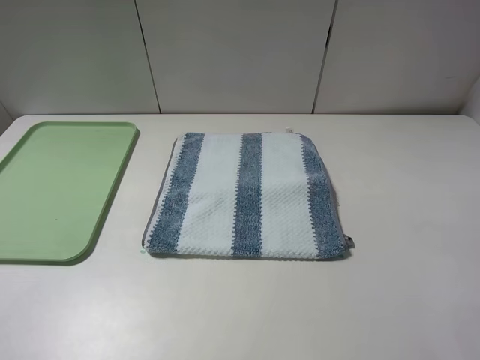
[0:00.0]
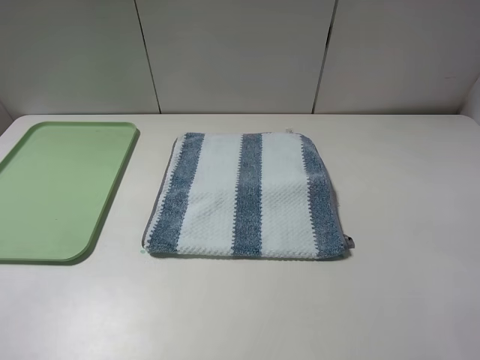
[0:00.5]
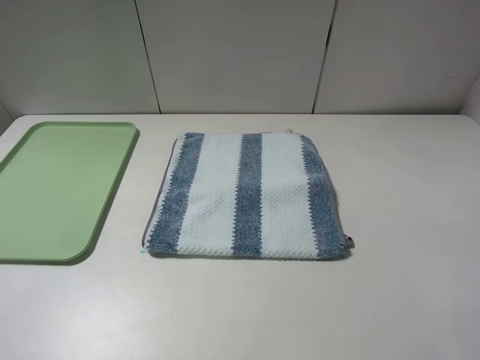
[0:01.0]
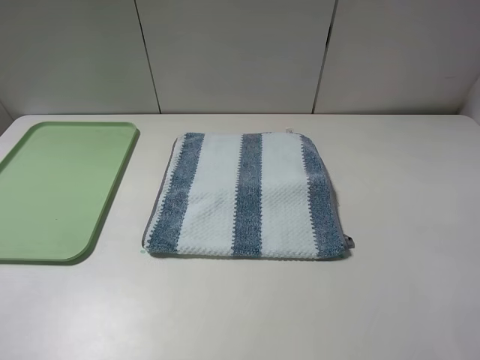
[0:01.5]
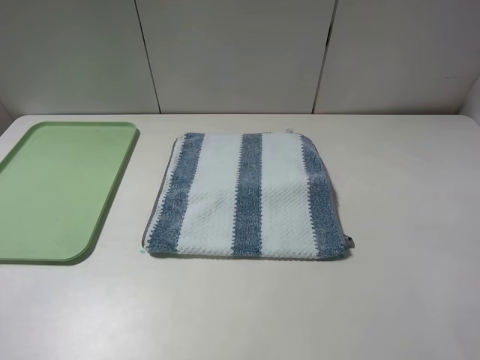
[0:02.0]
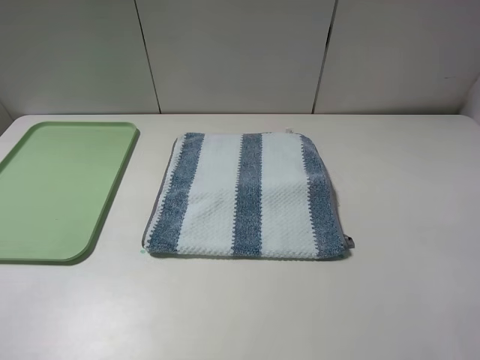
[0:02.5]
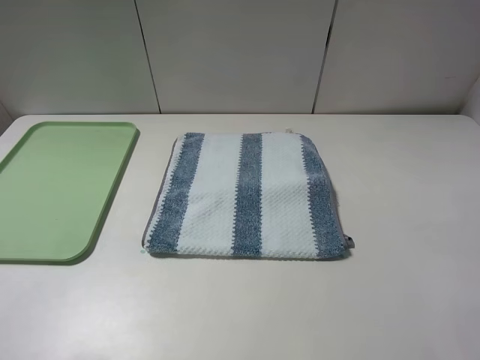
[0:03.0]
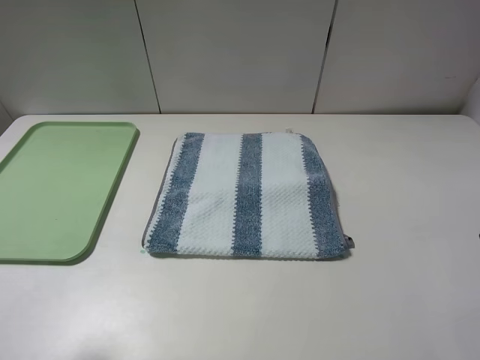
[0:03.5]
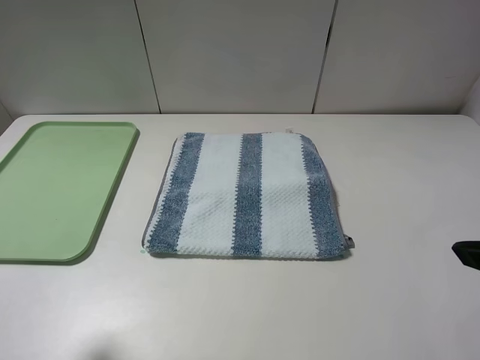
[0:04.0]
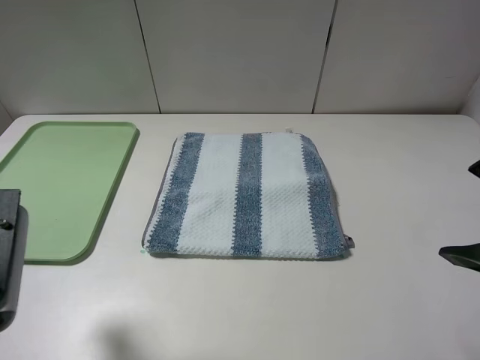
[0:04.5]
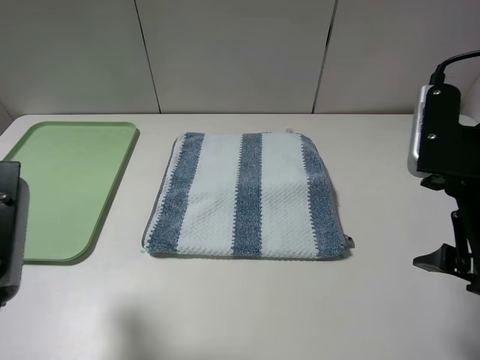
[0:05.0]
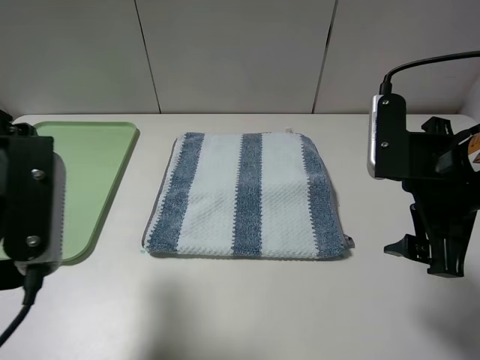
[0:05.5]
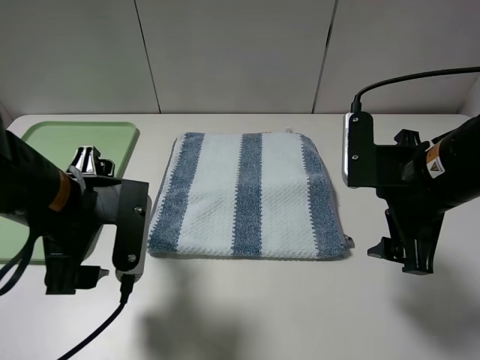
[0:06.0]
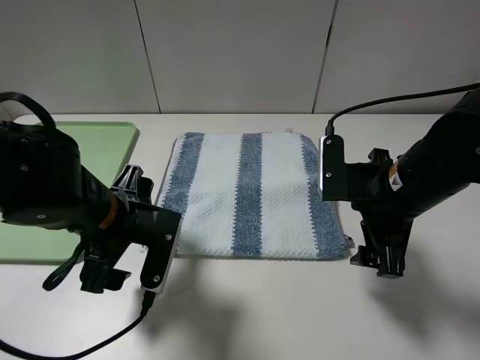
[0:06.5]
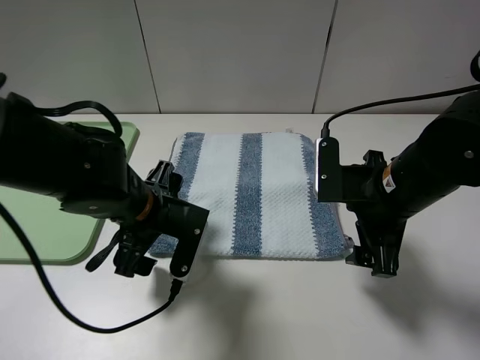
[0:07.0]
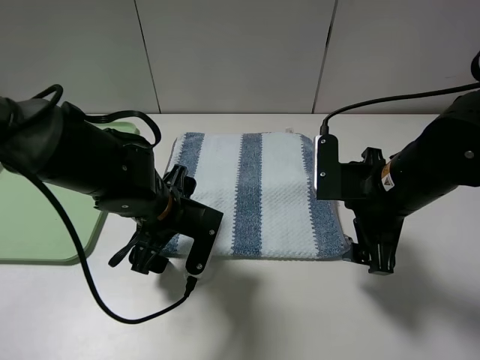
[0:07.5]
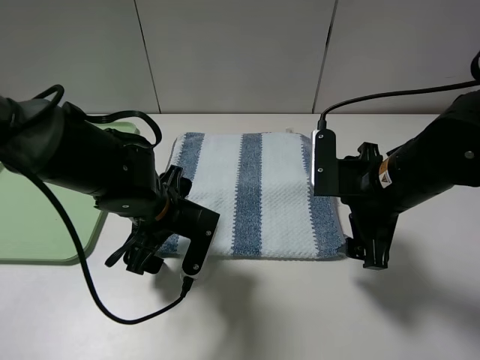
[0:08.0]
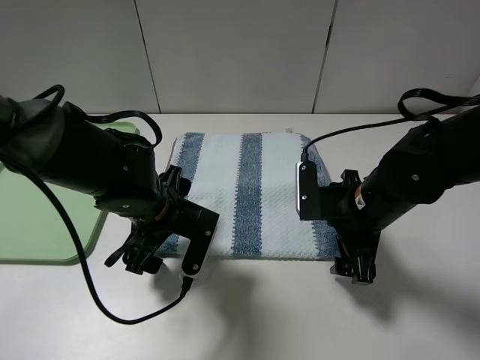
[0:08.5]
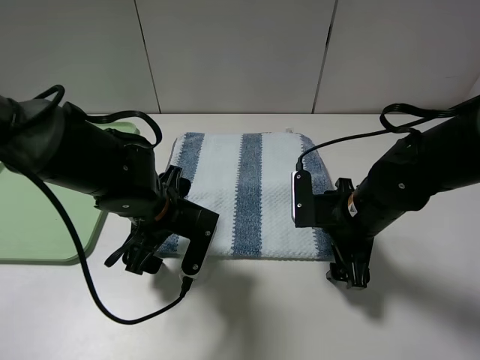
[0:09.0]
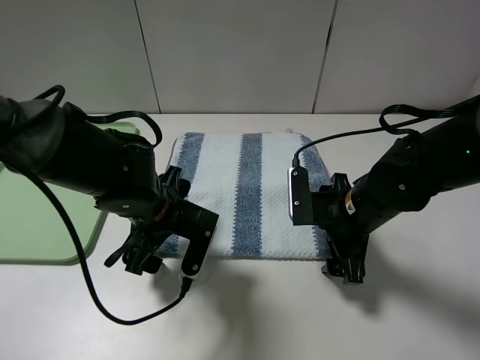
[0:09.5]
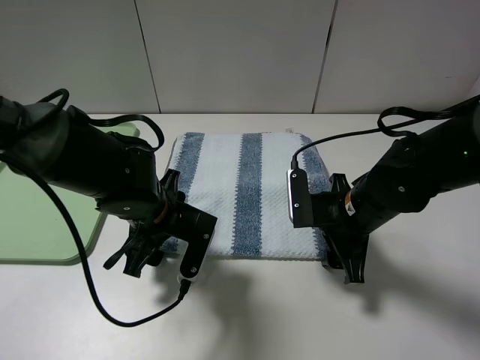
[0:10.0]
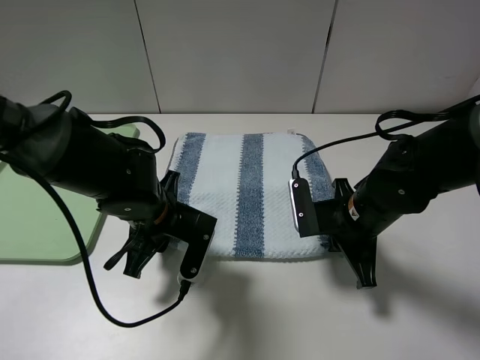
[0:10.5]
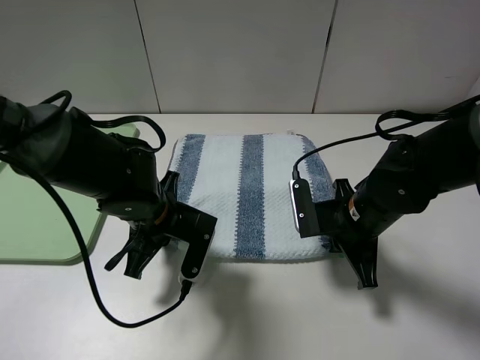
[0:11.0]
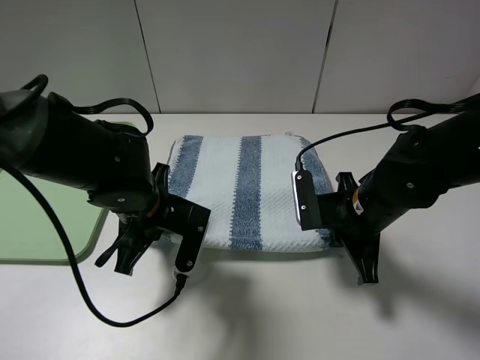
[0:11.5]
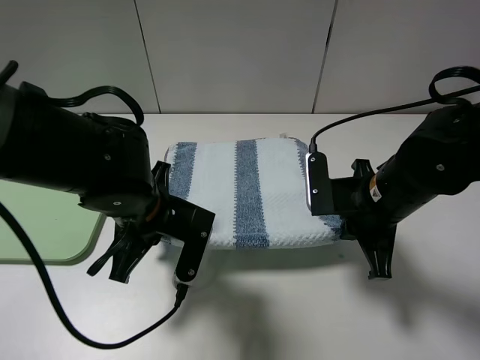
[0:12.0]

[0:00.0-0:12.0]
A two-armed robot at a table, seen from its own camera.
Step, 0:00.0 to 0:10.5: Grasp the blue white towel with the left gripper.
0:00.0 to 0:02.0: Both grippers stay about where they are.
0:04.0 to 0:06.0: The right gripper heads forward, downward and to the left, covering roughly 15 cm, while the left gripper goes approximately 15 cm to the right, forward and downward.
0:06.0 to 0:08.0: The right gripper shifts by roughly 5 cm. The left gripper travels downward, to the right and forward by roughly 10 cm.
0:08.0 to 0:10.0: The right gripper is displaced downward by approximately 5 cm.
0:10.0 to 0:12.0: The left gripper closes up, while the right gripper moves some 5 cm, and closes its fingers.

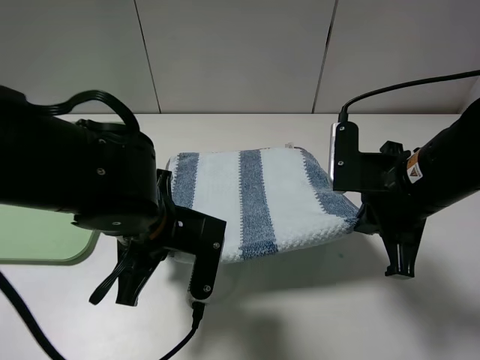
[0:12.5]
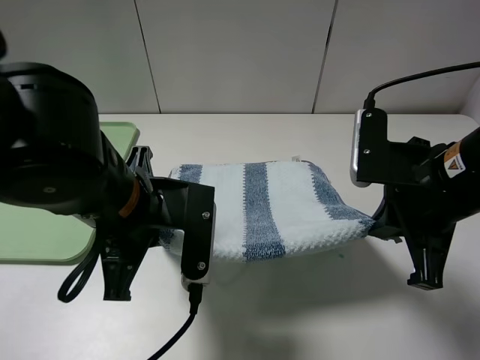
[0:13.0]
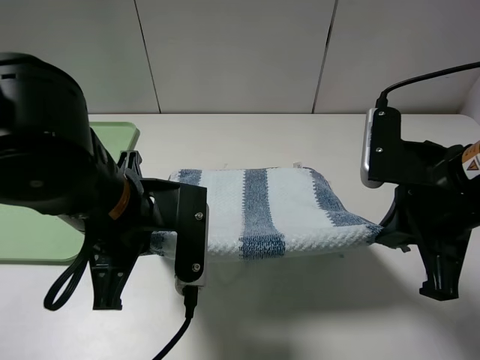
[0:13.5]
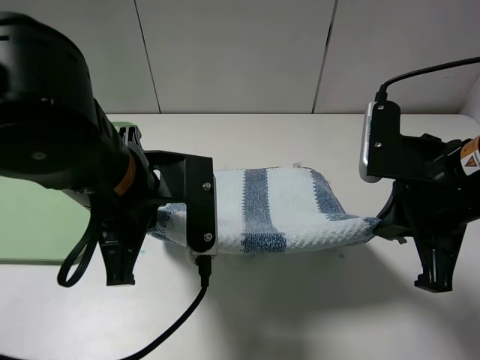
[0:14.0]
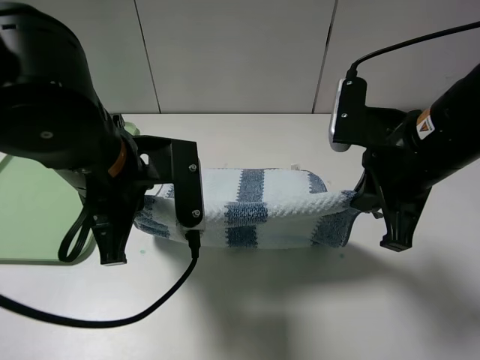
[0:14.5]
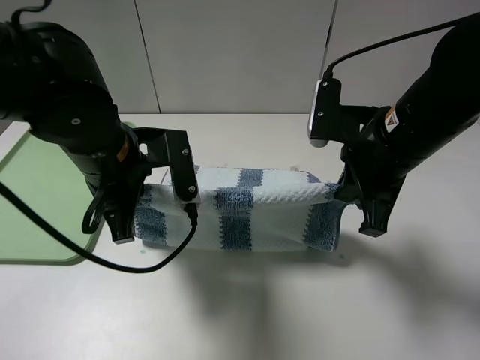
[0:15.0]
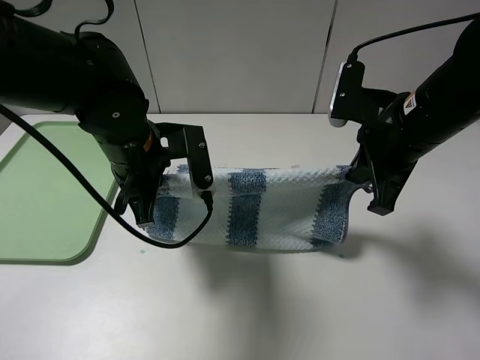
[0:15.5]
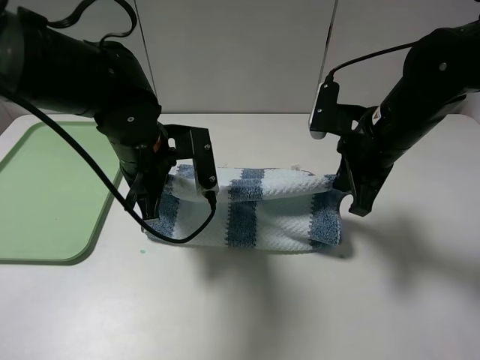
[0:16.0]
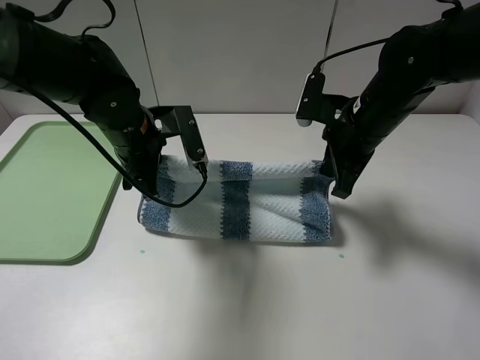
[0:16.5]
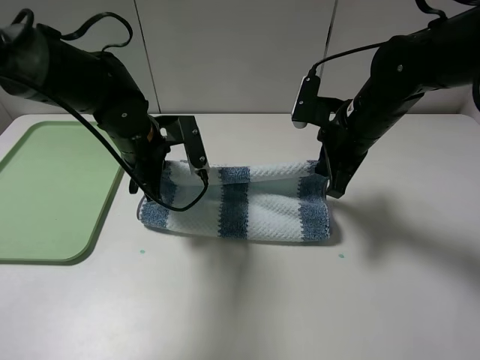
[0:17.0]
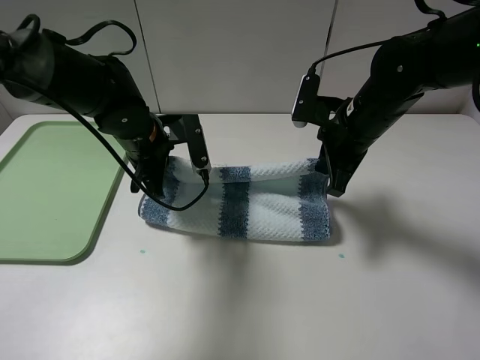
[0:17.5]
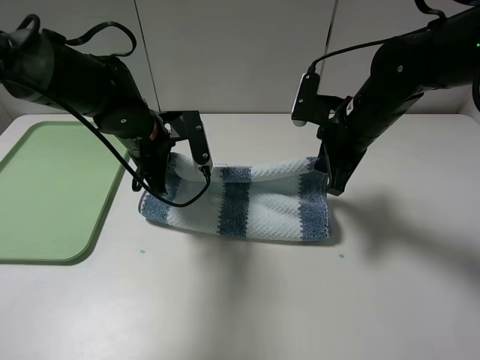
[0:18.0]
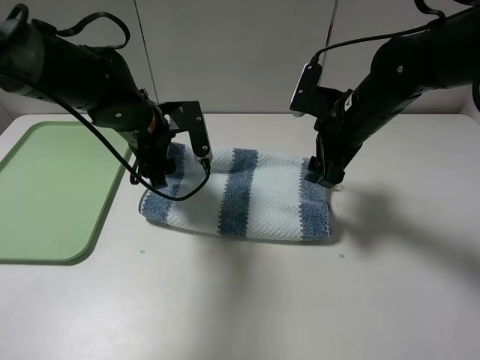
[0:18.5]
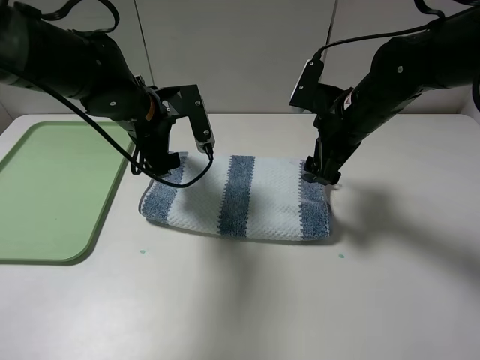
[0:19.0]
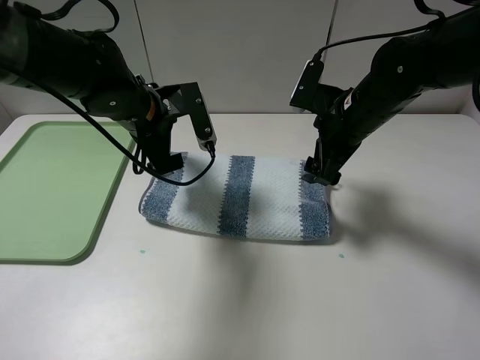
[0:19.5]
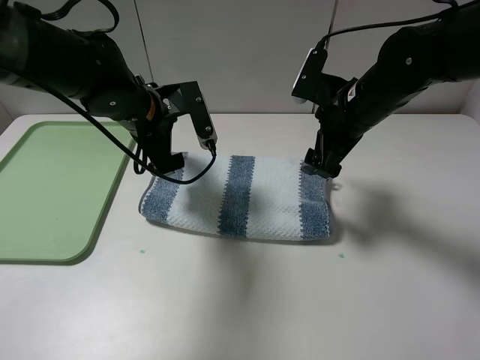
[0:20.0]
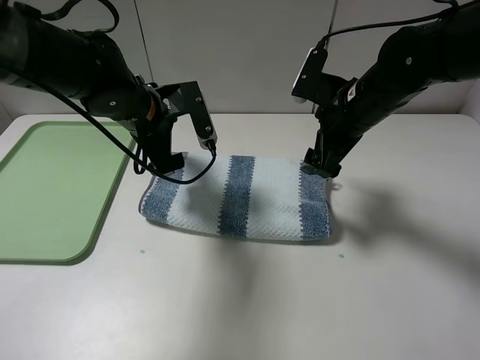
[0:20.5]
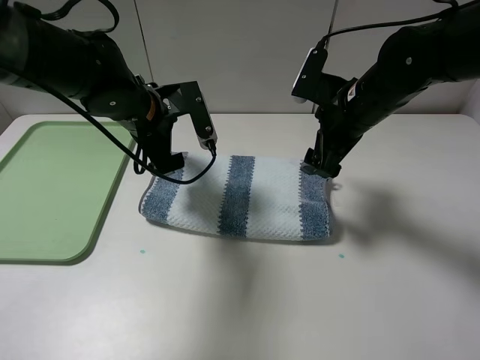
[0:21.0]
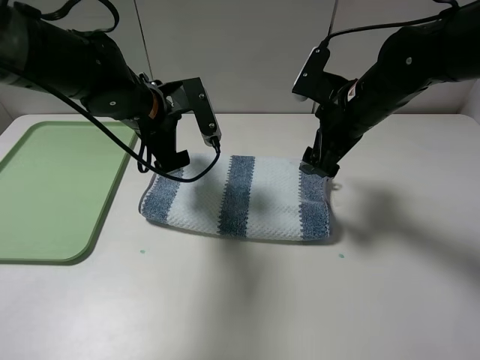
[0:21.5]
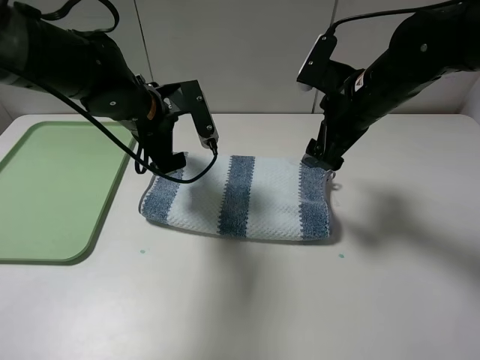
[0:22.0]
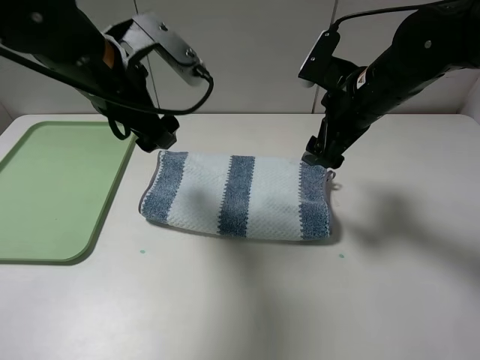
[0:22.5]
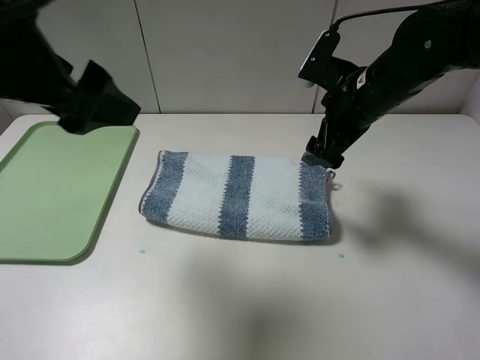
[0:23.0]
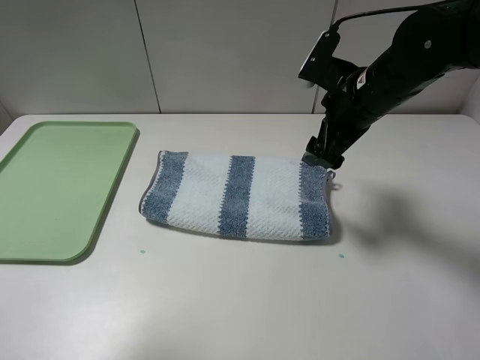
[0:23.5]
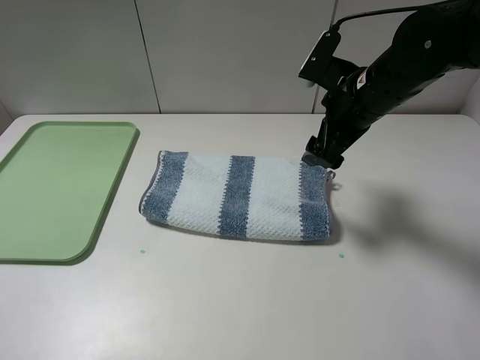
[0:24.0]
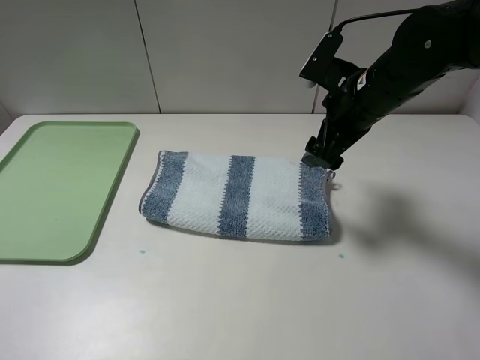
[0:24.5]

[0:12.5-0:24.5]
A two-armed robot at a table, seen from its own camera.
Step, 0:12.5 to 0:20.5: Fold the blue white towel upwards with the left gripper.
0:12.5 to 0:14.5: The left gripper heads upward, covering approximately 5 cm.
0:14.5 to 0:16.5: The left gripper travels forward and downward by about 15 cm. Meanwhile the right gripper moves forward, roughly 10 cm.
0:16.5 to 0:18.5: The left gripper opens its fingers. The right gripper opens up.
0:18.5 to 0:20.5: The grippers make only small movements.
0:20.5 to 0:22.5: The left gripper shifts roughly 10 cm upward and backward.
0:22.5 to 0:24.5: The left gripper moves backward and to the left, roughly 30 cm.

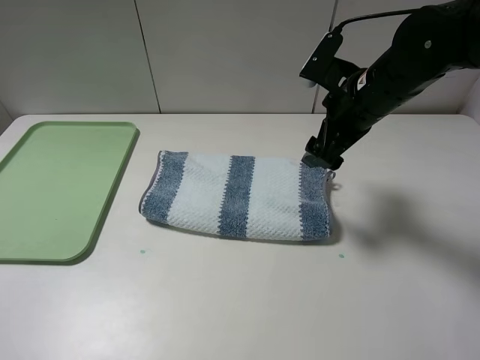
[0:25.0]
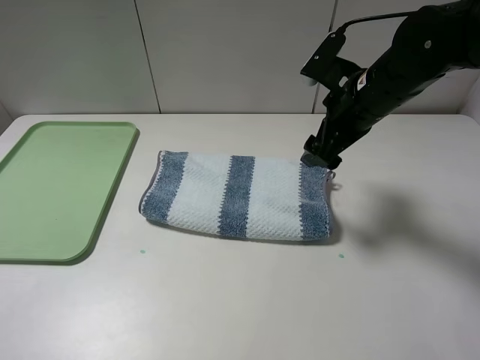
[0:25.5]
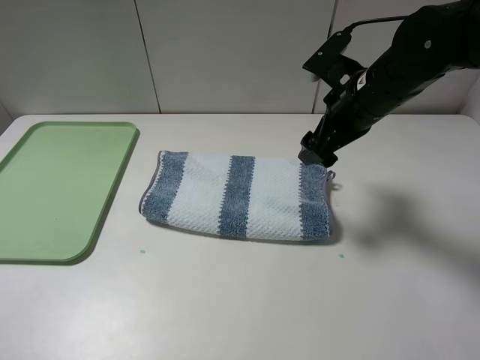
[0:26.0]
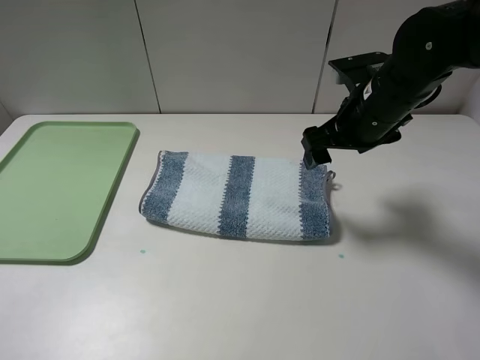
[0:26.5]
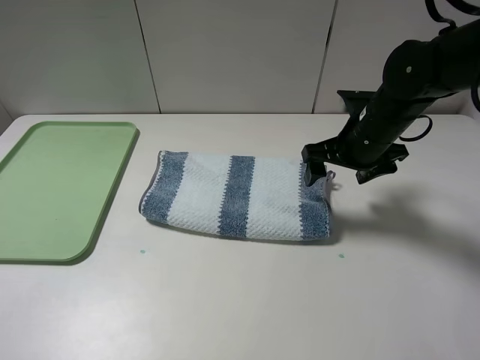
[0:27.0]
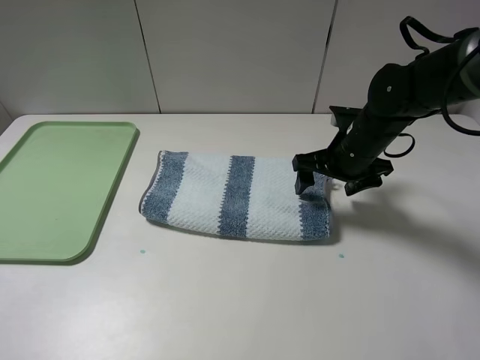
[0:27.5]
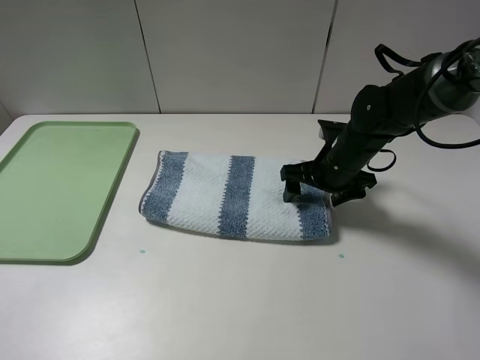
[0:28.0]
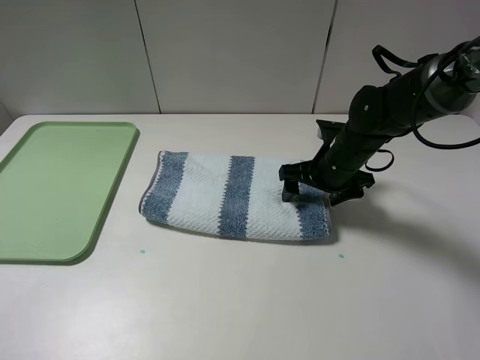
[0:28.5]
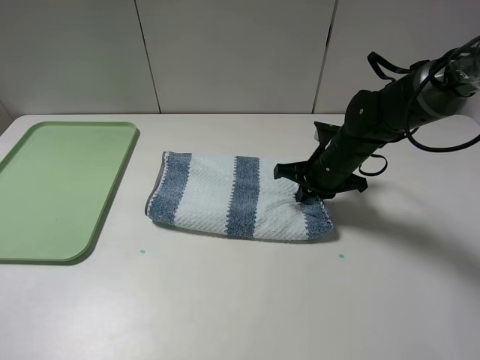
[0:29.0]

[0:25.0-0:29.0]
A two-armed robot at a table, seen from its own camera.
0:25.0 to 0:27.0: The right gripper travels downward by about 5 cm.
0:27.0 to 0:29.0: The right gripper goes approximately 5 cm downward, and closes.
